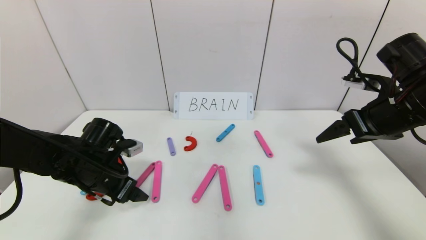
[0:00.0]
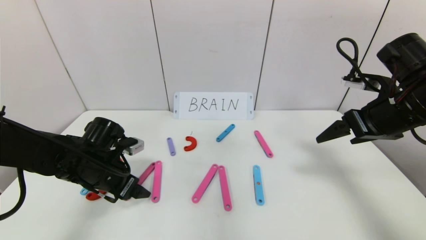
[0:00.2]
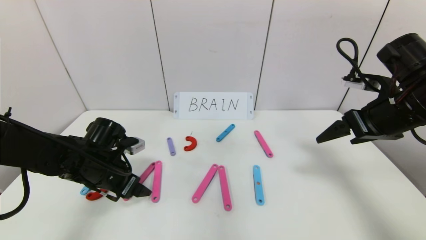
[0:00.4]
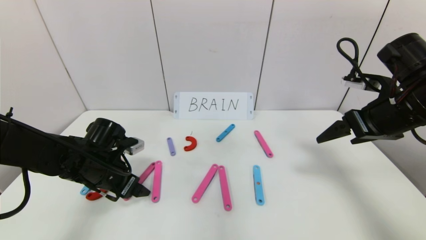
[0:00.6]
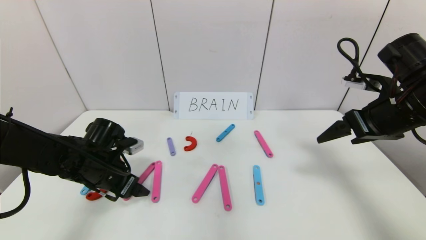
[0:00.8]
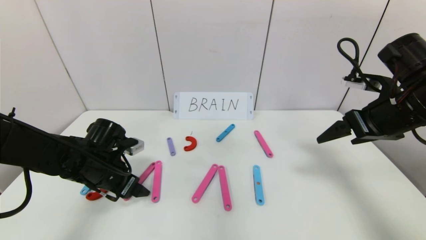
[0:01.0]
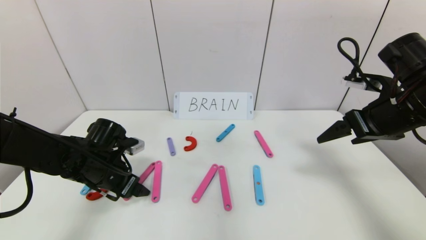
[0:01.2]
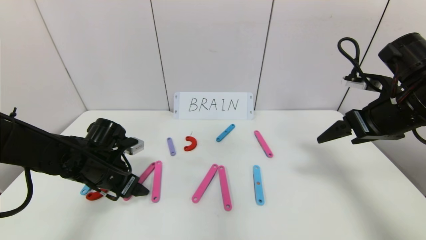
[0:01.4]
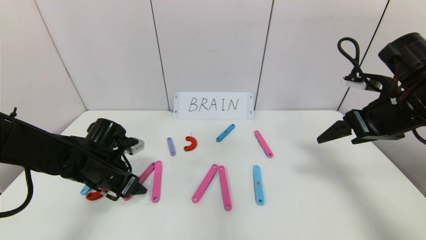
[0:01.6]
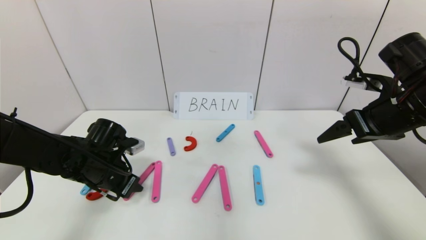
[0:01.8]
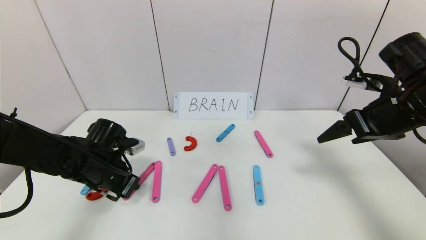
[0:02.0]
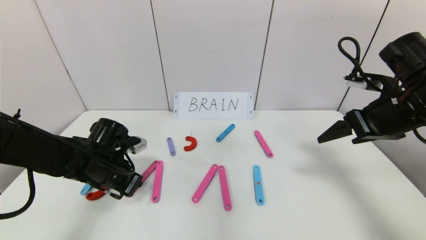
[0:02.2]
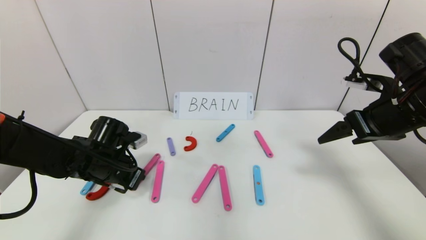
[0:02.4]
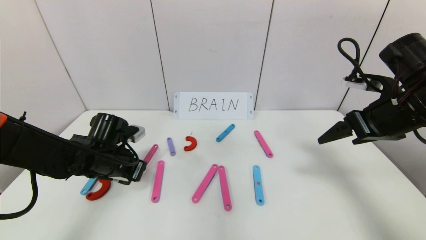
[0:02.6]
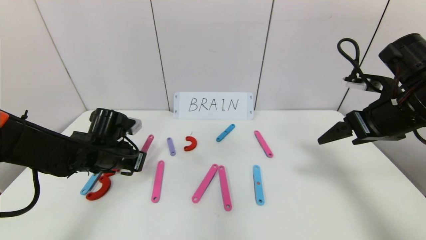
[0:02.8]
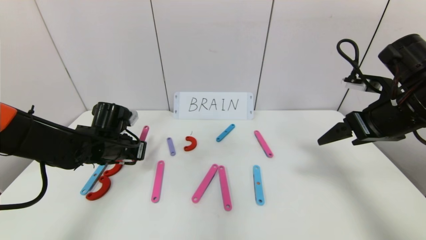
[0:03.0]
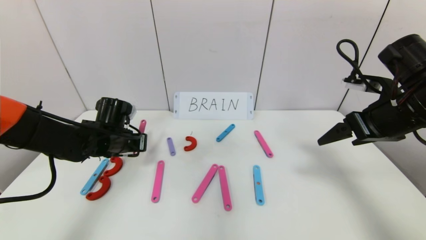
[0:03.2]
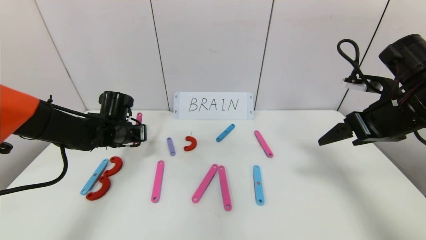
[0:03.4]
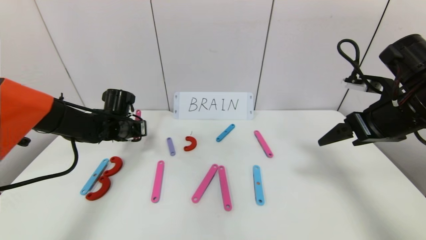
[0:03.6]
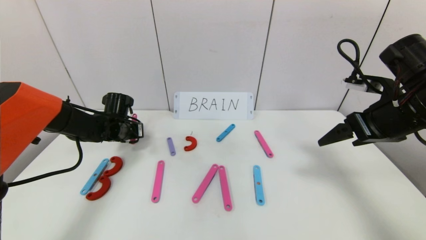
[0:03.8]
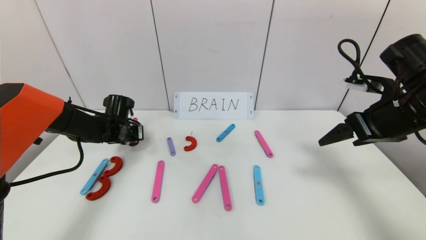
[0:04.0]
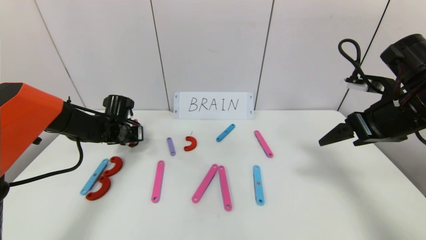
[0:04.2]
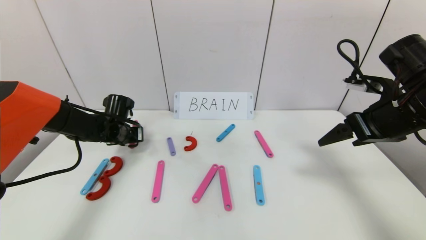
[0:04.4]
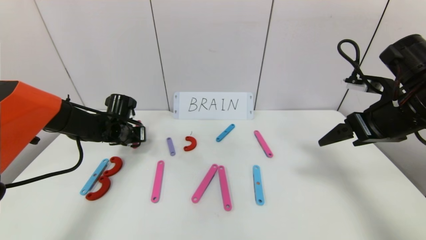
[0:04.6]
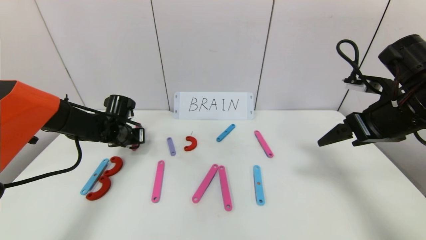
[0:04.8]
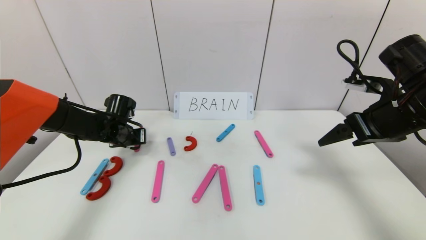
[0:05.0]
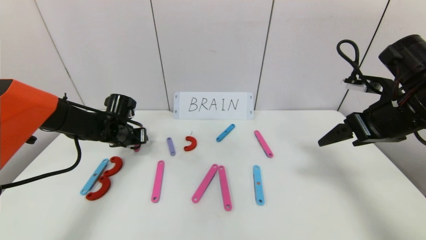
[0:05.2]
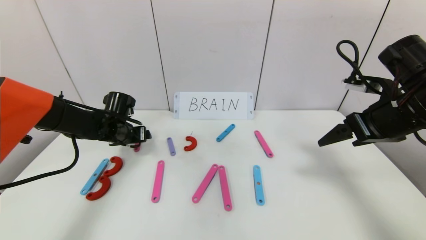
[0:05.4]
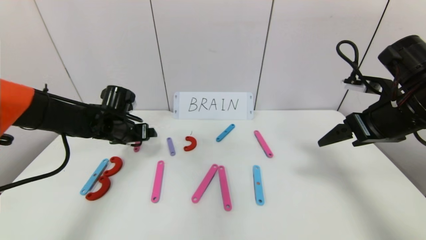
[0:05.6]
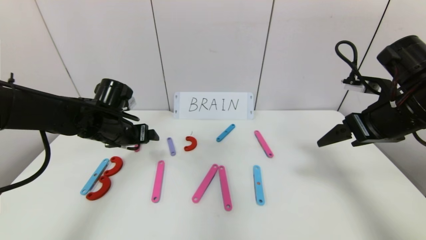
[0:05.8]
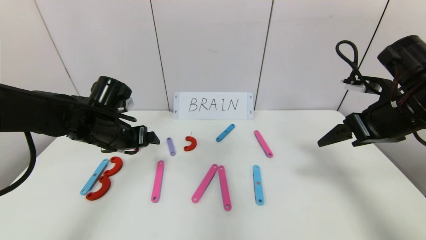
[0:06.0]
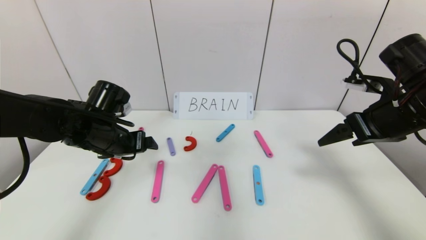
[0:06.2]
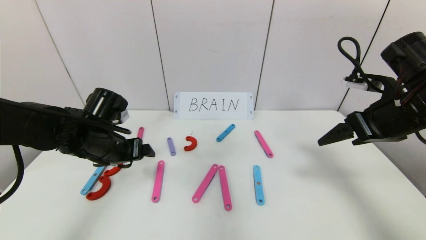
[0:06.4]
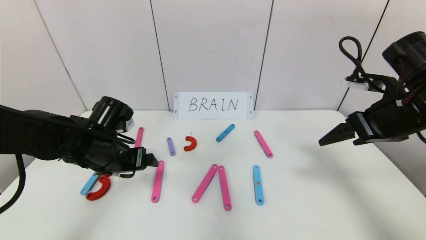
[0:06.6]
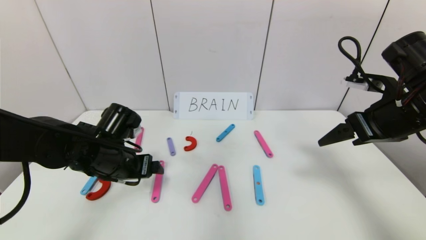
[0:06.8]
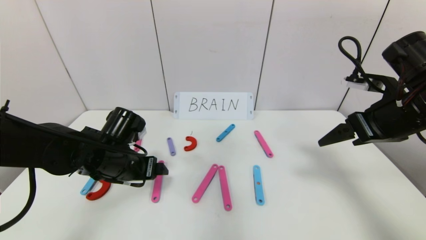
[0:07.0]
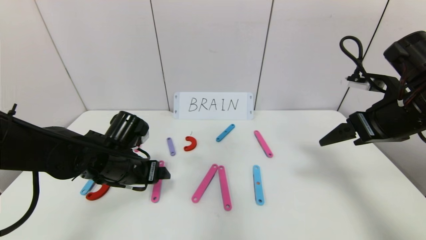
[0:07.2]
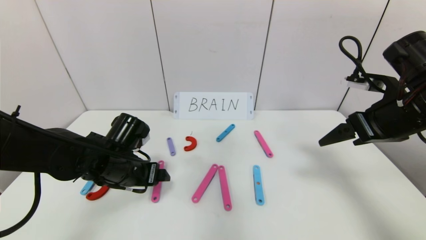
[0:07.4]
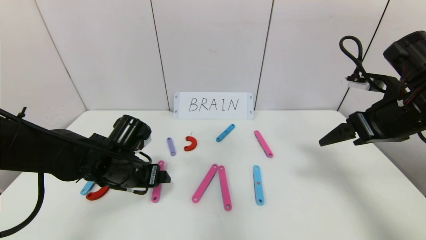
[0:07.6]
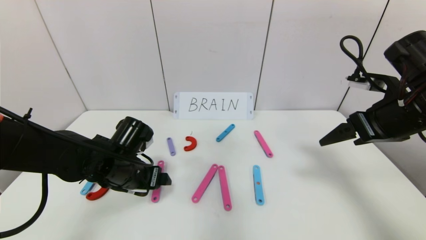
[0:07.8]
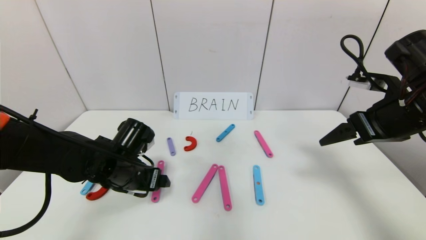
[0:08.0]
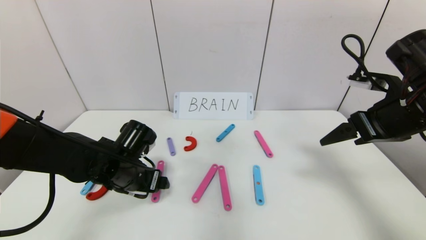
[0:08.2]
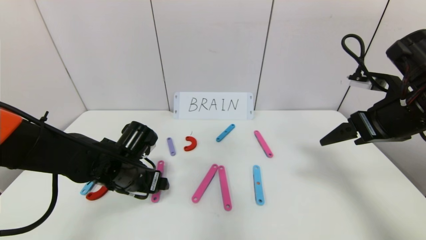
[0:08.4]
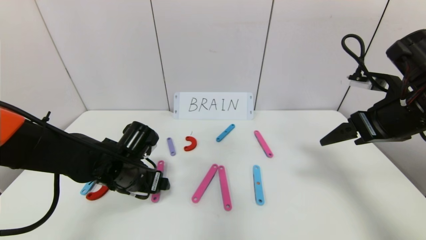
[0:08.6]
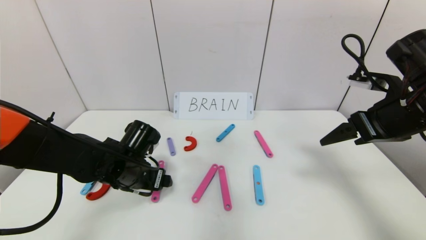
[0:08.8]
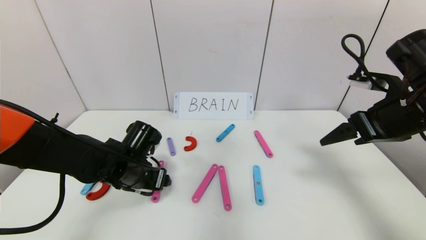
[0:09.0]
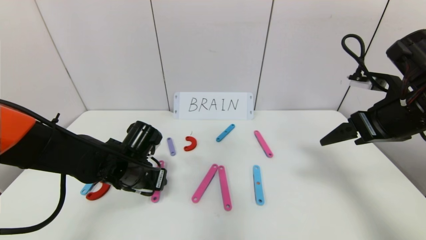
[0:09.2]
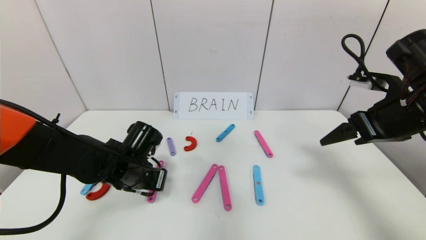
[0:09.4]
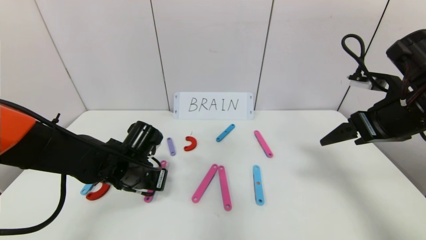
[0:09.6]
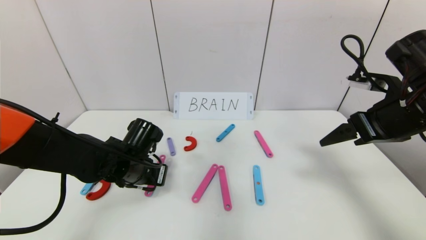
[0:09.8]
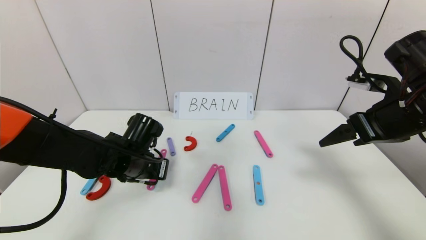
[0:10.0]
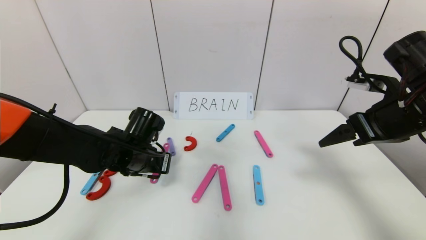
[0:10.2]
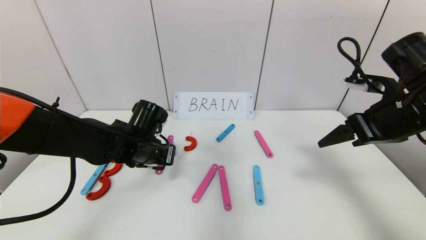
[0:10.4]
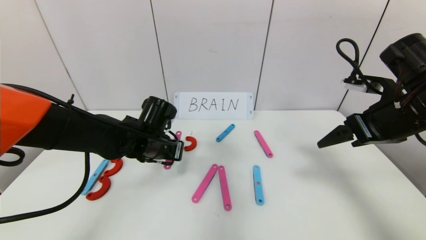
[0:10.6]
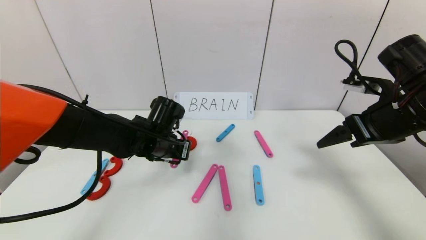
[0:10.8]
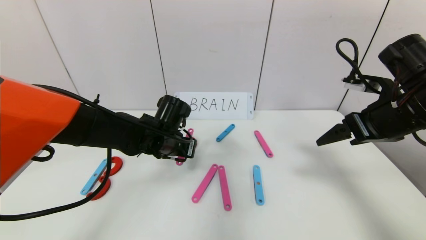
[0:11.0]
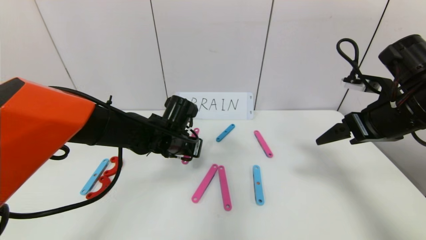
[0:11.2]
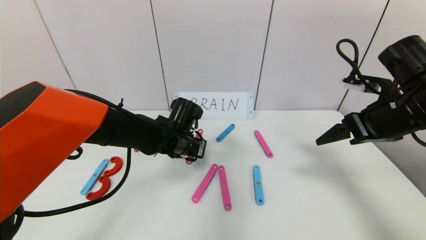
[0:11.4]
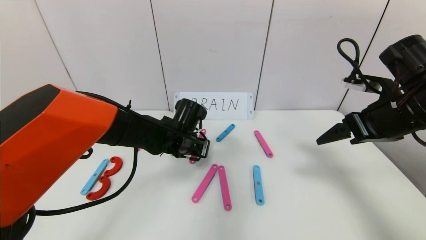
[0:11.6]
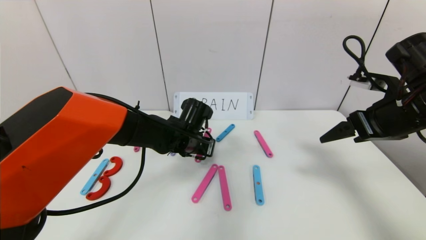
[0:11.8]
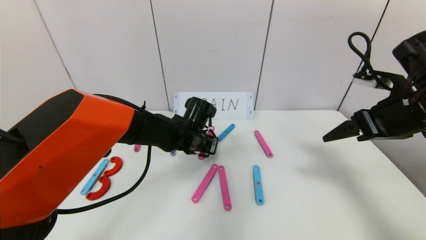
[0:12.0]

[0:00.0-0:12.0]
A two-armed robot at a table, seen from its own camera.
Task of the whole recording: rearrange the word baai as brain.
0:00.0 to 0:01.6: The grippers move only a little.
0:01.6 to 0:03.0: The left gripper closes up.
0:03.0 to 0:04.4: The left gripper travels forward by about 10 cm.
0:04.4 to 0:06.0: The left gripper is displaced backward and upward by approximately 15 cm, and opens its fingers.
0:06.0 to 0:07.6: The left gripper moves downward, about 5 cm.
0:07.6 to 0:09.0: The grippers make only small movements.
0:09.0 to 0:10.4: The left gripper changes place by some 5 cm, and closes.
0:10.4 to 0:12.0: The left gripper travels to the right and forward by roughly 10 cm.

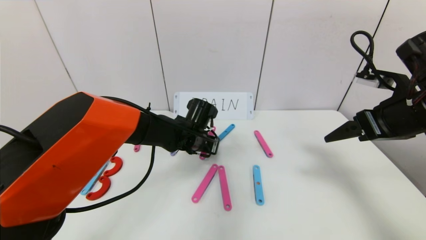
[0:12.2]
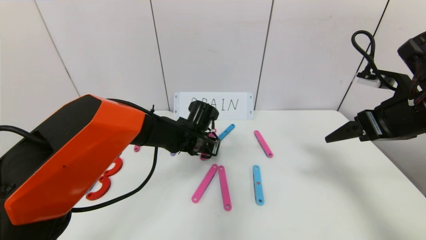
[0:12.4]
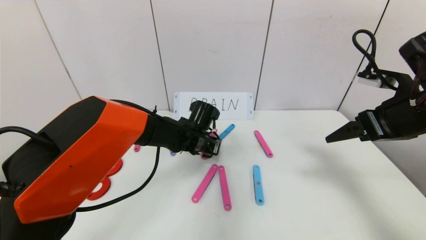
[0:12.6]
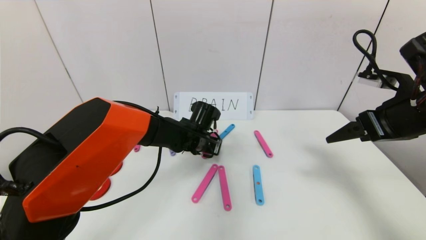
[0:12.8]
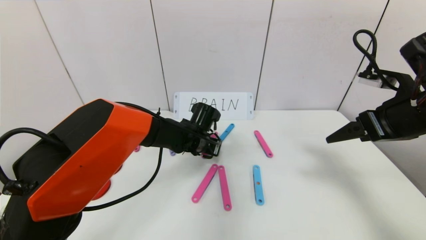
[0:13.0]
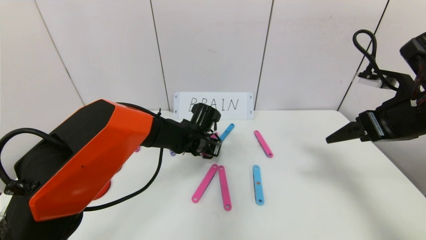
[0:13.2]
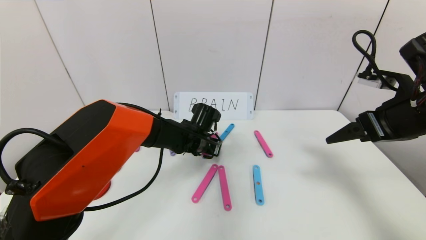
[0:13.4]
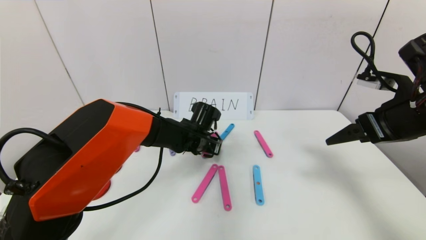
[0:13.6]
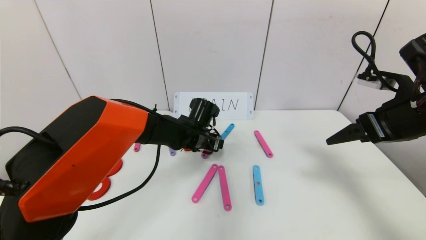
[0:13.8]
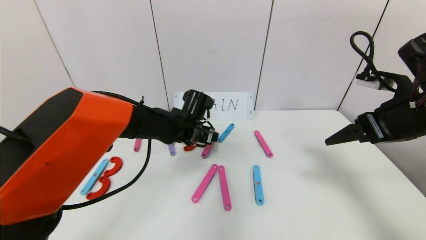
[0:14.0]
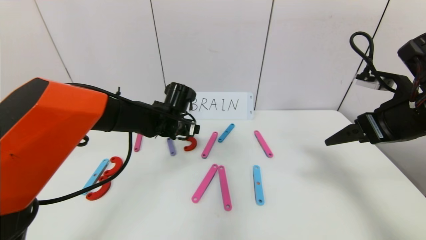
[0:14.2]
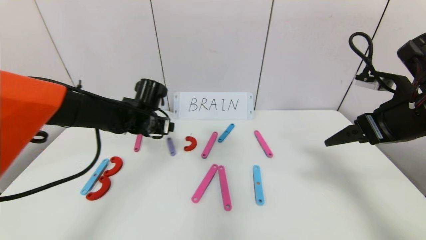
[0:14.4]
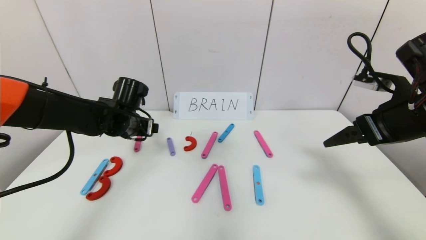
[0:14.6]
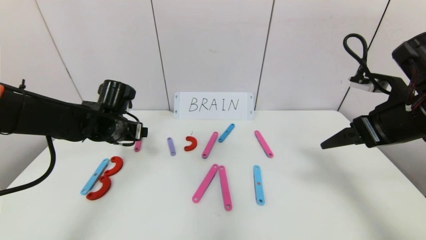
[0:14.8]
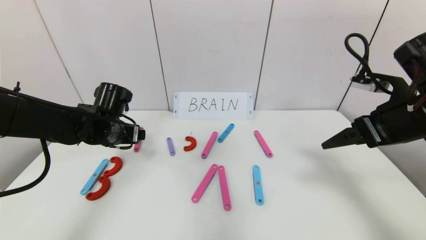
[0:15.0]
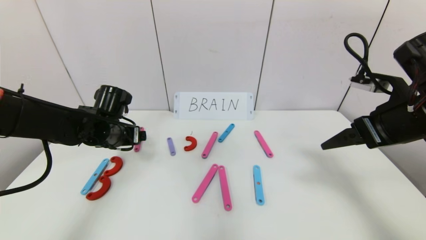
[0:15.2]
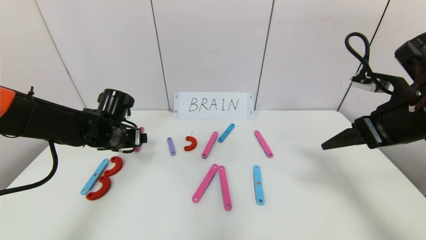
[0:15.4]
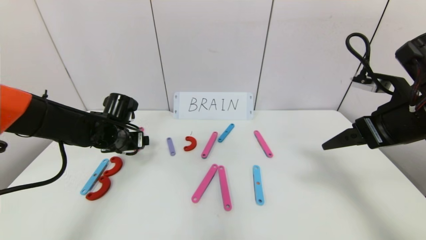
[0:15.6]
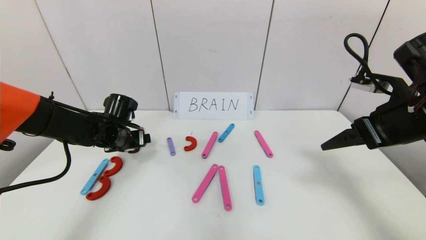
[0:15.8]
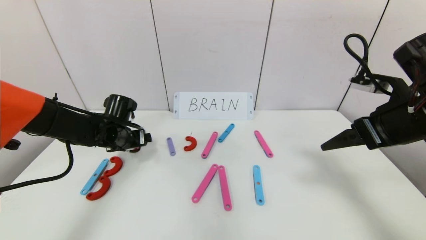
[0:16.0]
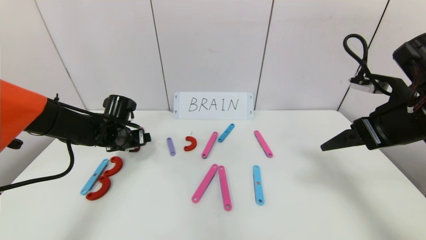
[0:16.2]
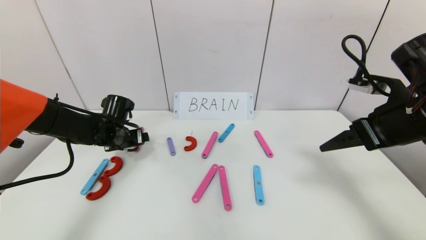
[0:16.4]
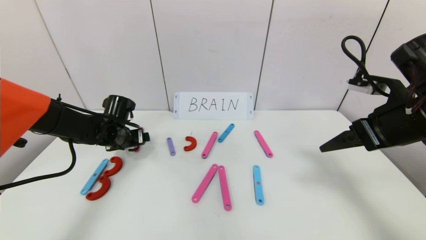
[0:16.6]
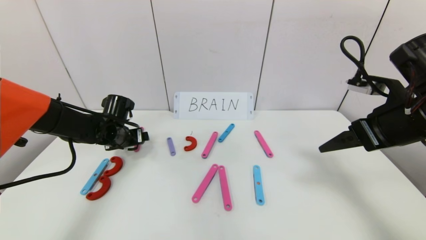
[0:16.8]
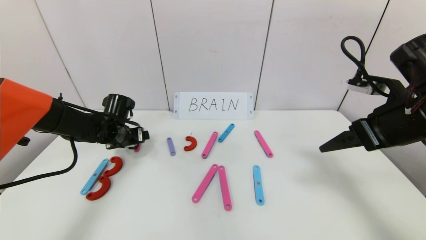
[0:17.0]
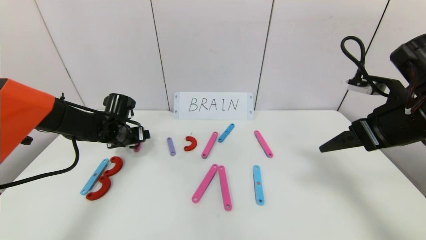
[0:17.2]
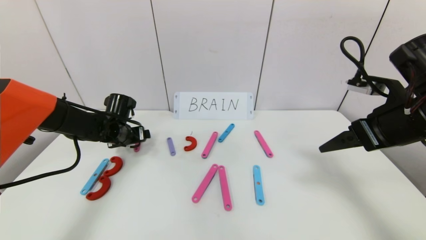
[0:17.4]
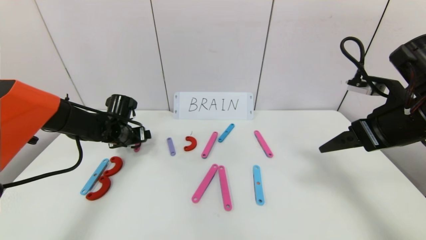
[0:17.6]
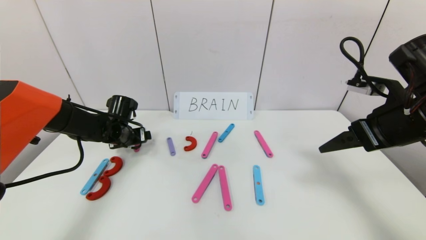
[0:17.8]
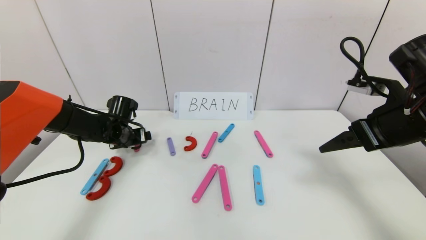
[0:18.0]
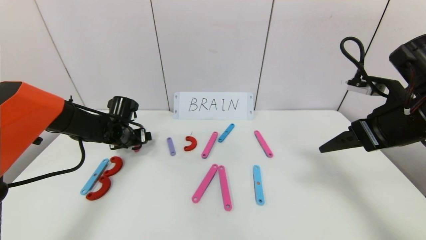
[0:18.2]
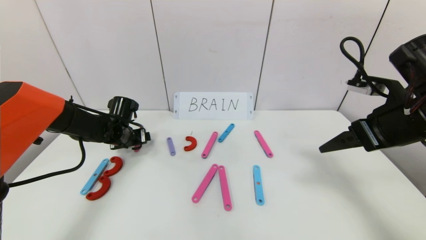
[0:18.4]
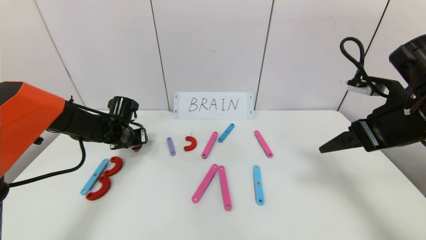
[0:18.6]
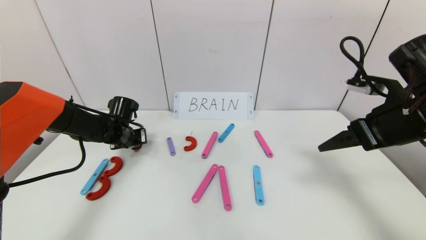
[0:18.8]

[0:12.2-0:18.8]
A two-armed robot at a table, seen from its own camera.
Task of the whole recording: rearrange the word baai as brain.
0:12.2 to 0:13.8: The left gripper opens.
0:13.8 to 0:15.4: The left gripper shifts approximately 20 cm to the left.
0:15.4 to 0:17.2: The left gripper shifts about 5 cm forward.
0:17.2 to 0:18.8: The left gripper closes.
